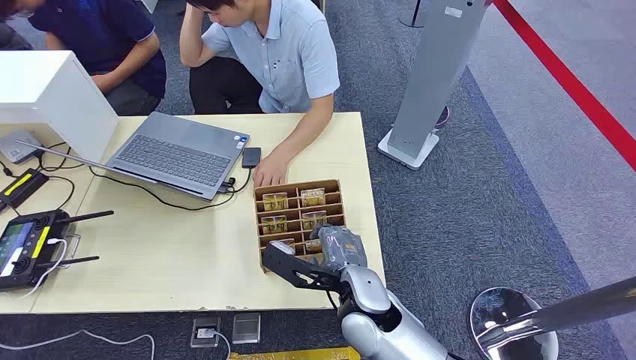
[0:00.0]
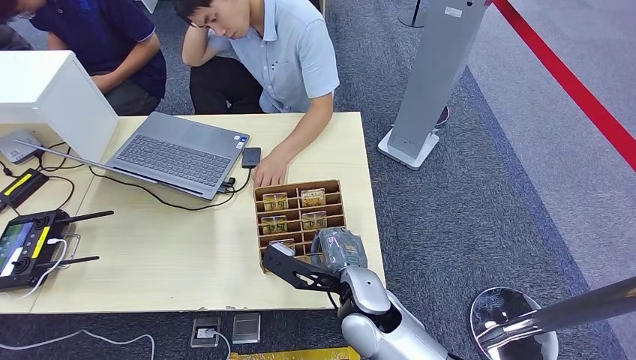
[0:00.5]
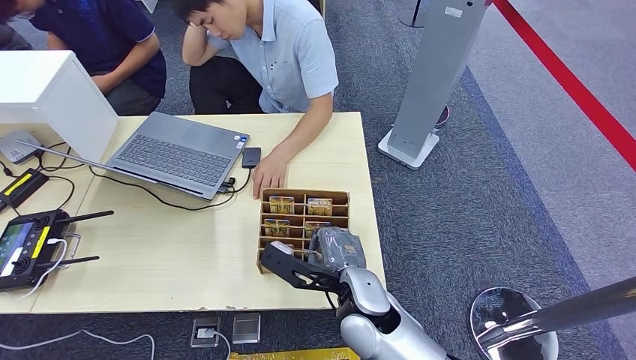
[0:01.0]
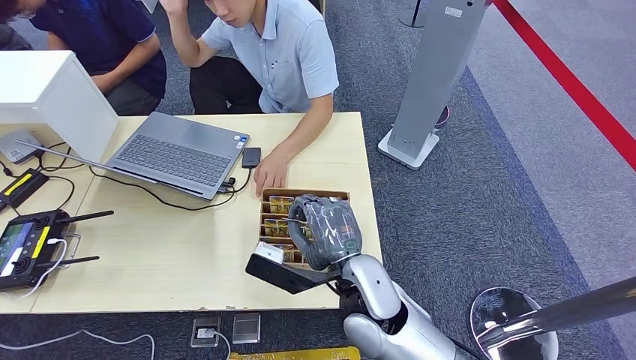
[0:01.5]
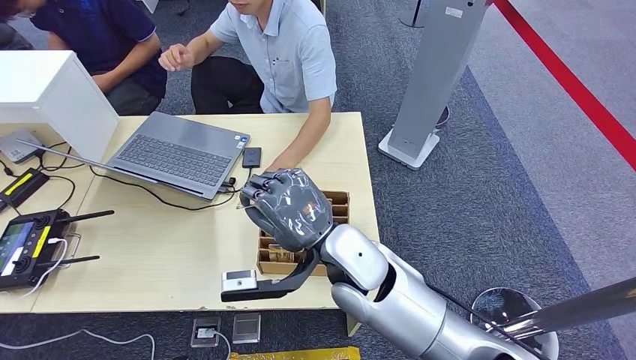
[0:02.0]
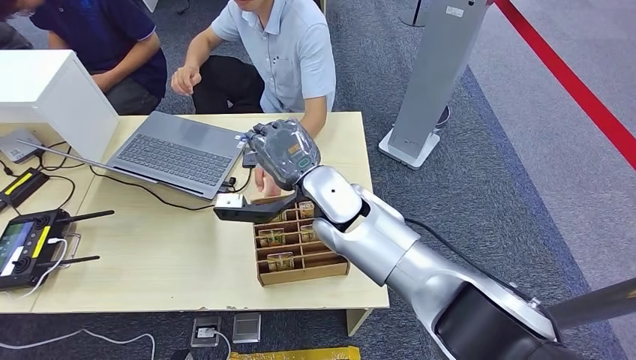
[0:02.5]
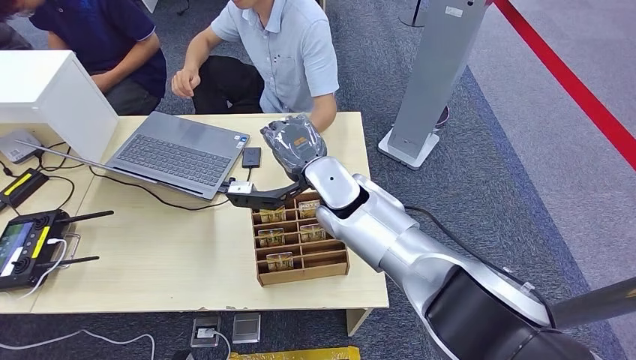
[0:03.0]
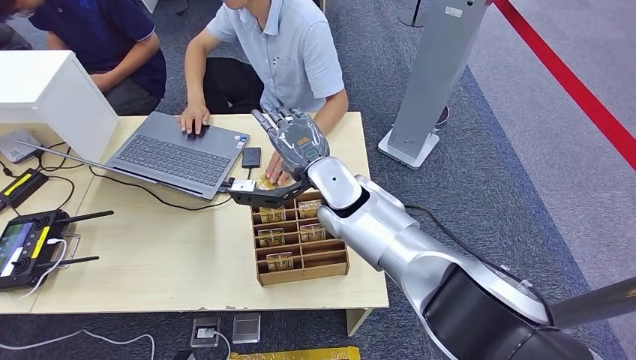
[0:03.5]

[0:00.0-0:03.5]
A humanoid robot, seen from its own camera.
Step, 0:00.0 to 0:01.5: Pick up the key card from the card box.
Step, 0:02.0 to 0:03.5: Hand the key card to the target.
0:02.0 to 0:03.5: The right hand goes roughly 10 cm forward.
